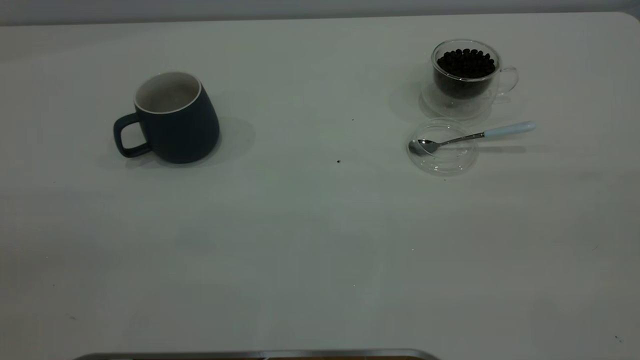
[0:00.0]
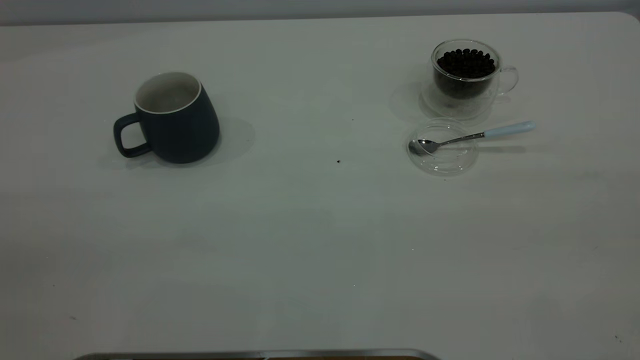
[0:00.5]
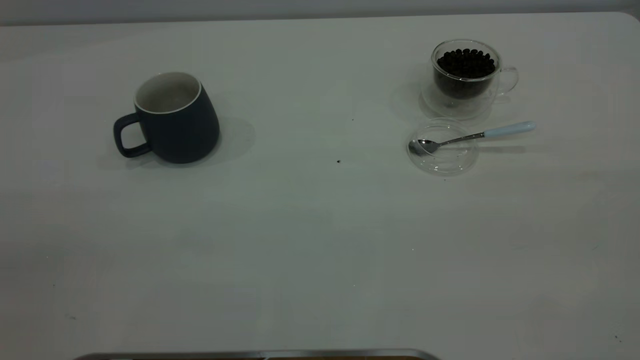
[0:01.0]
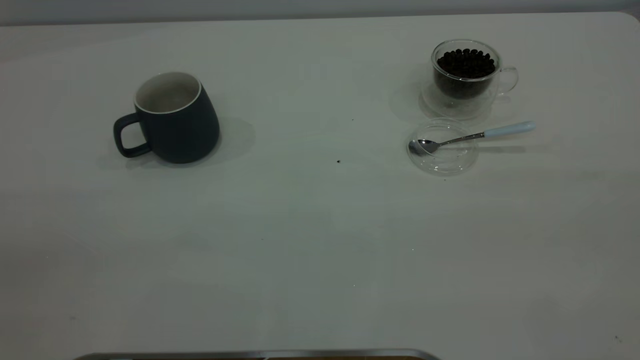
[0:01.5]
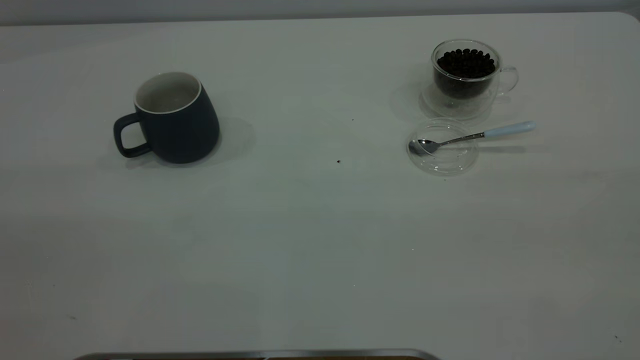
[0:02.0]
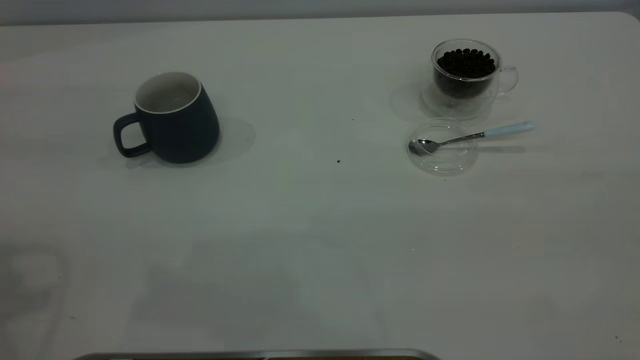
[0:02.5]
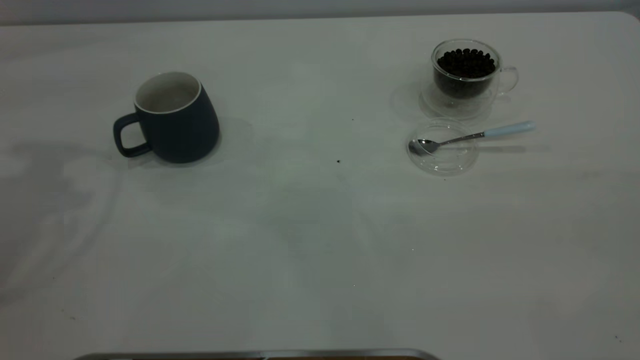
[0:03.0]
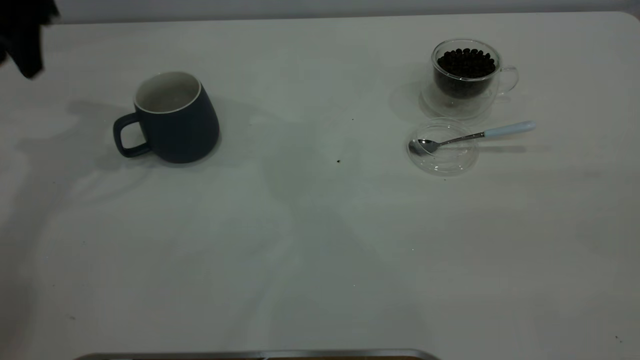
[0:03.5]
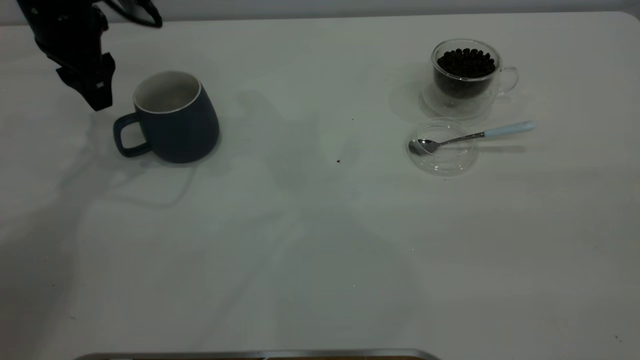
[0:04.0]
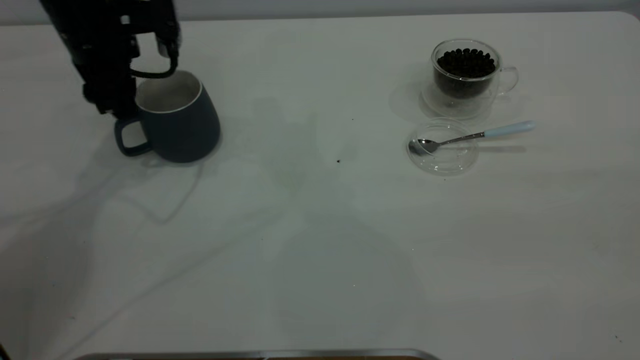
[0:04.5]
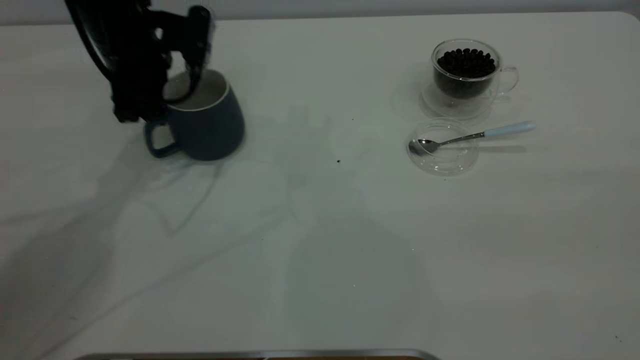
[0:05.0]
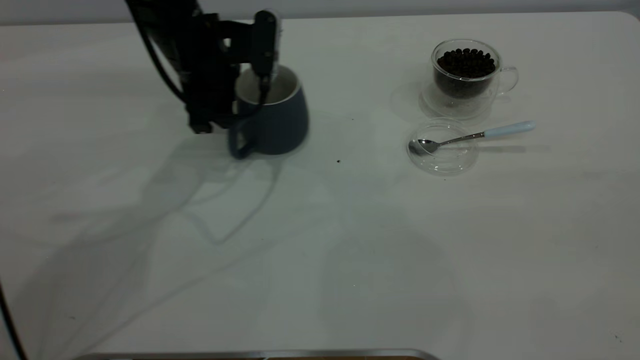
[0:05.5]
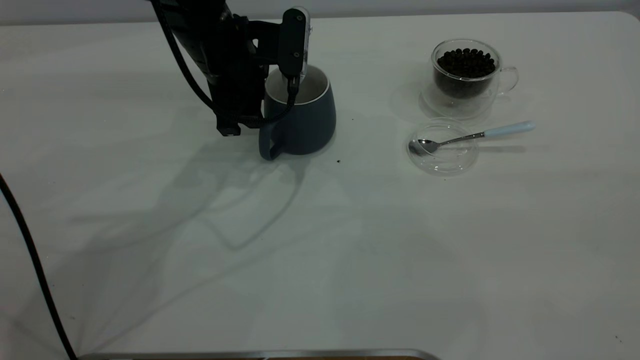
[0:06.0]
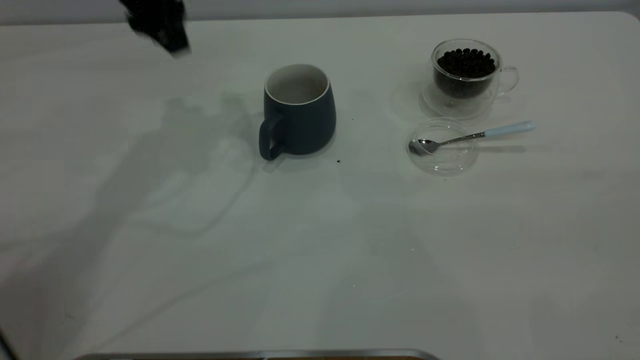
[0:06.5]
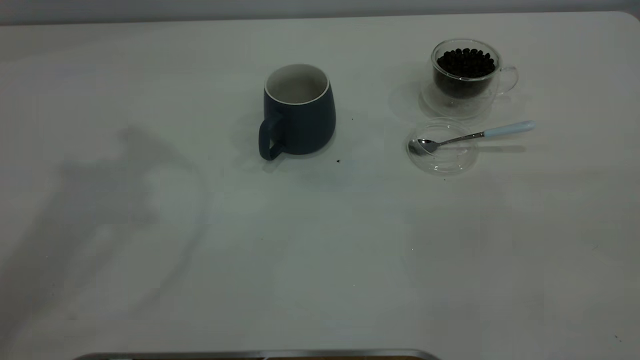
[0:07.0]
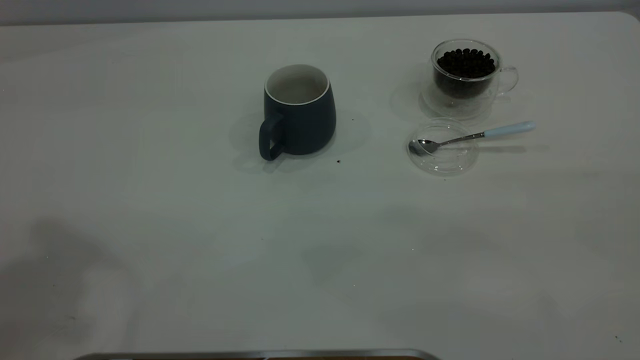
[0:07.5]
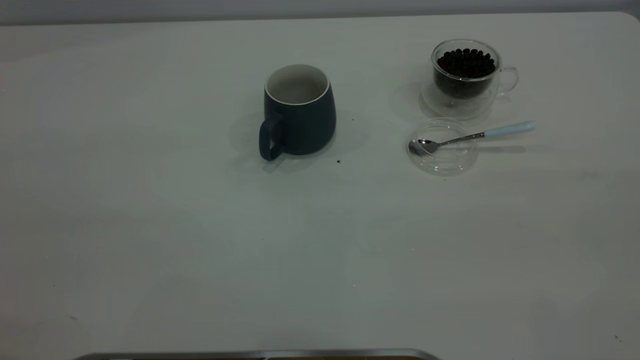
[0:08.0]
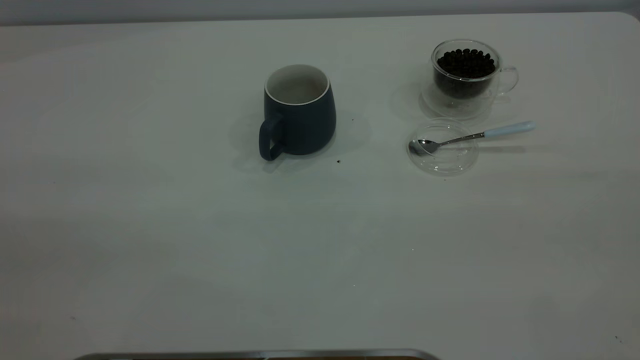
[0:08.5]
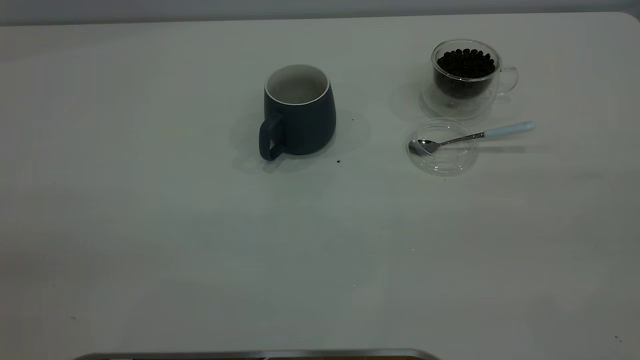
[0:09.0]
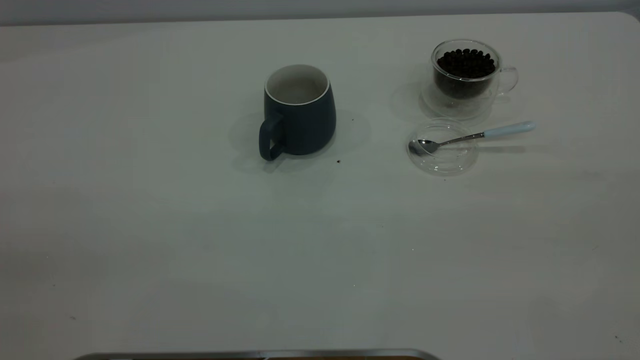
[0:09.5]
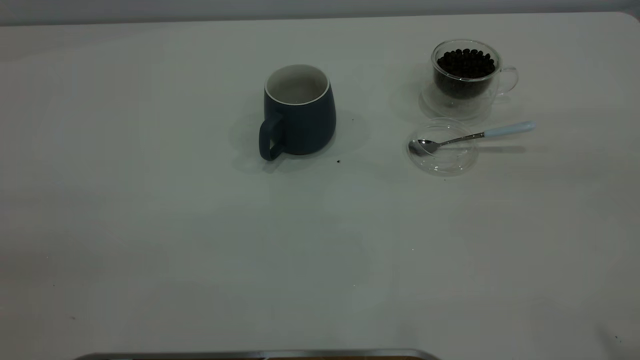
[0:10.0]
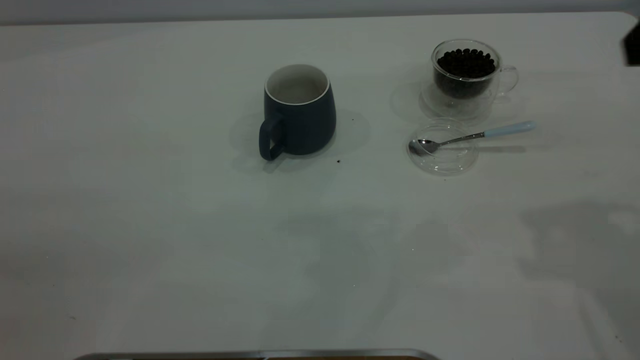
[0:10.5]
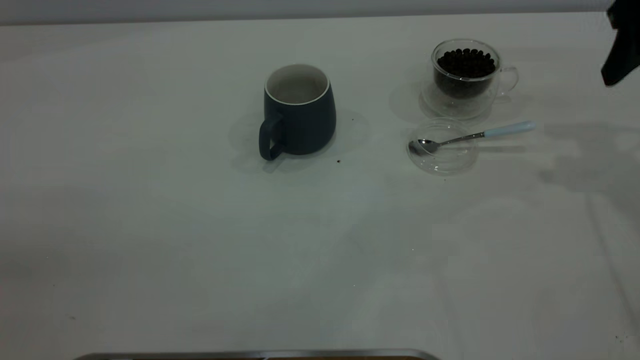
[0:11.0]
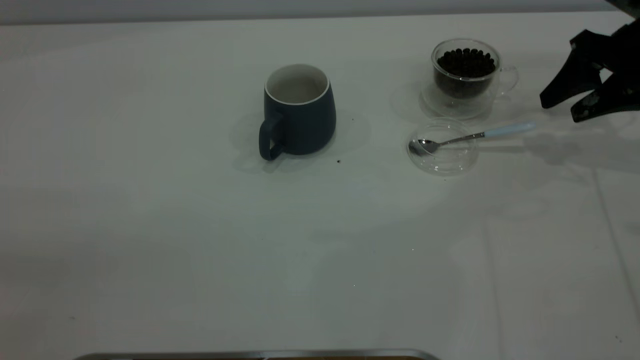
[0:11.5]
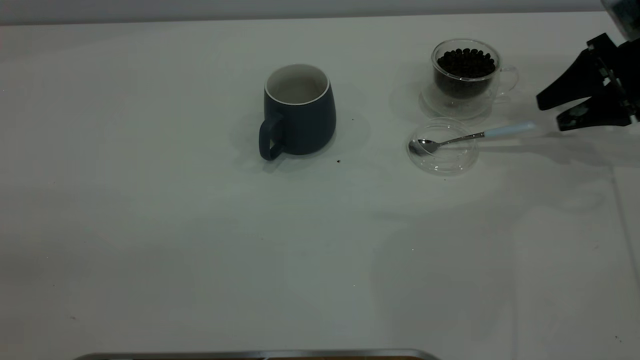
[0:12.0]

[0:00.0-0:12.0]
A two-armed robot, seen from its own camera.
Task of the whole recording: the left gripper place the grey cup in the center of the table, the right gripper take the blue spoon from the cup lid and scoop out the coffee beans from the coffee cup and put them into the grey cup, the right gripper put the spoon back into the cup lid.
Step, 0:00.0 to 0:06.0: Move the cup to the center of view.
0:02.0 to 0:04.0: The left gripper is displaced forward and downward by roughly 40 cm.
0:04.0 to 0:06.0: The left gripper is displaced to the right by some 15 cm.
0:06.0 to 0:08.0: The left gripper heads backward, upward and to the left, covering about 50 cm.
0:10.0 to 0:12.0: The right gripper goes roughly 40 cm forward and downward.

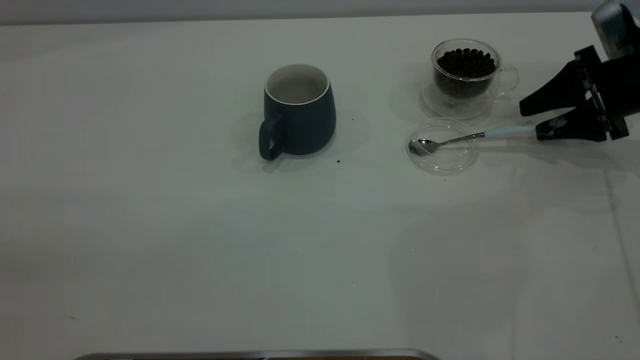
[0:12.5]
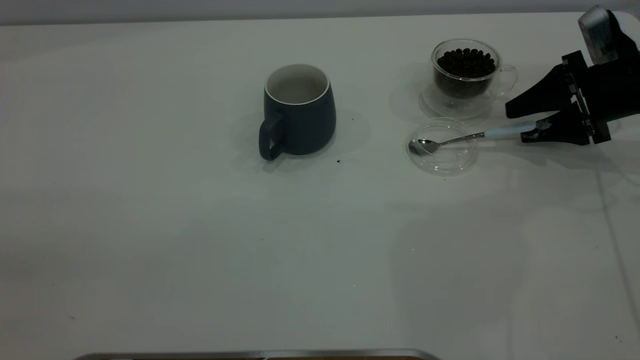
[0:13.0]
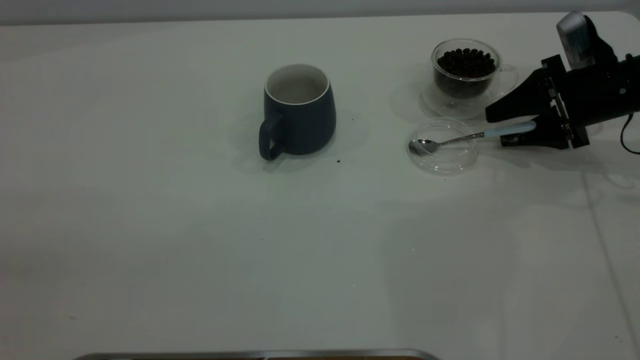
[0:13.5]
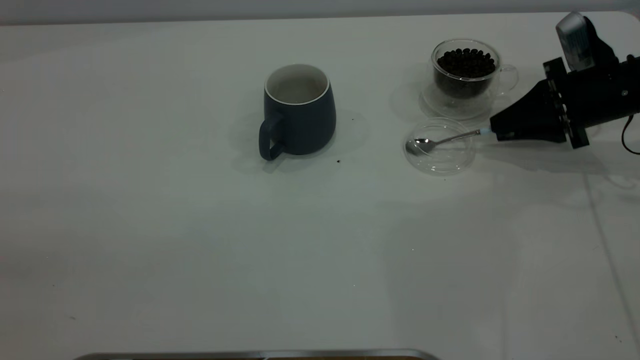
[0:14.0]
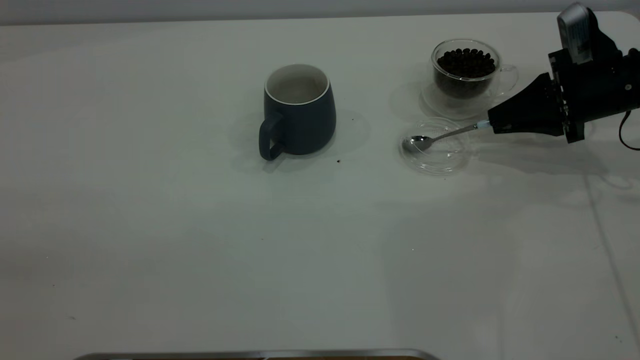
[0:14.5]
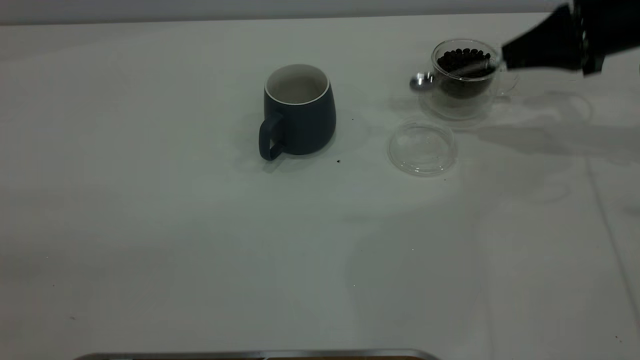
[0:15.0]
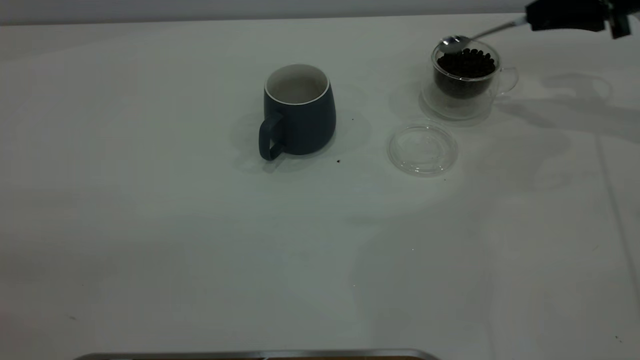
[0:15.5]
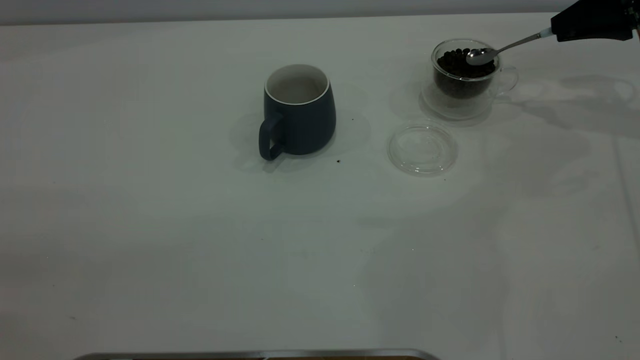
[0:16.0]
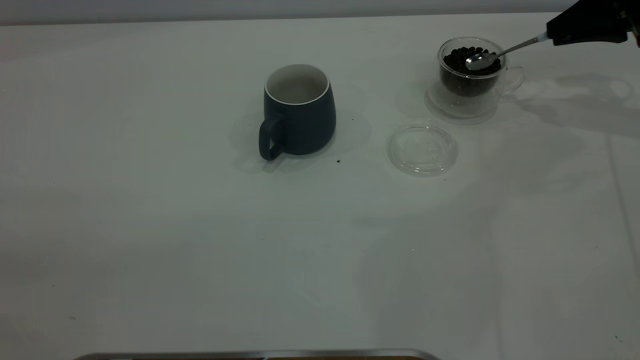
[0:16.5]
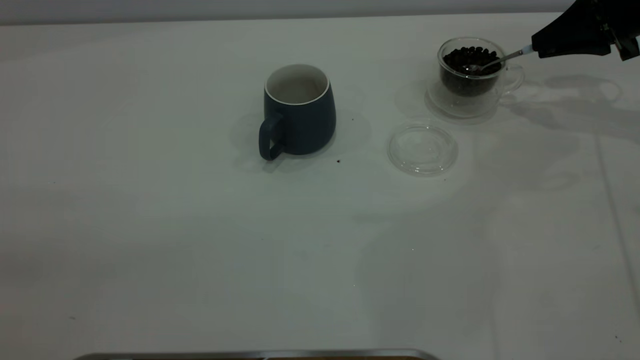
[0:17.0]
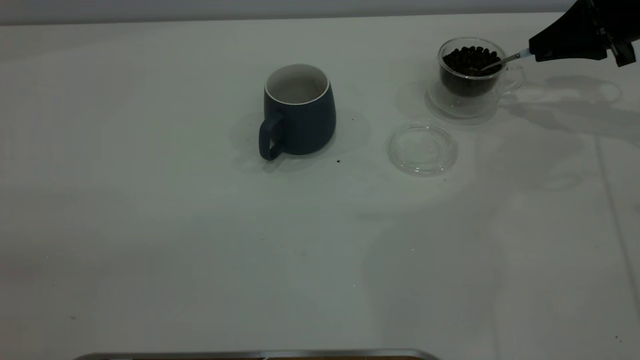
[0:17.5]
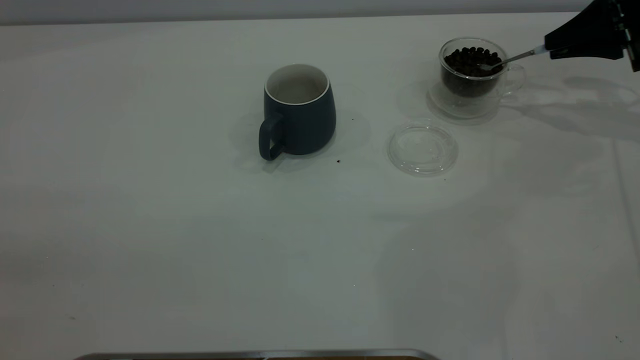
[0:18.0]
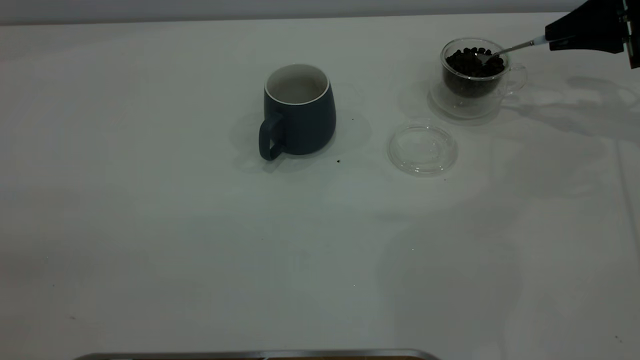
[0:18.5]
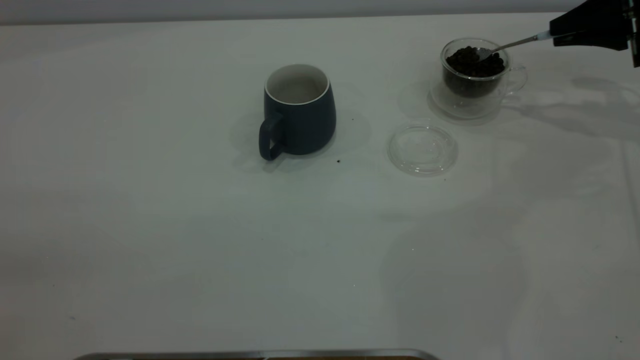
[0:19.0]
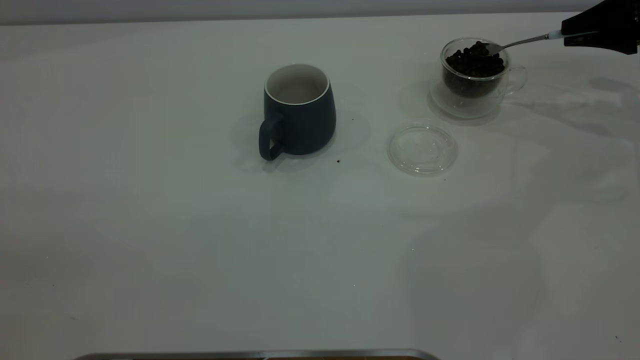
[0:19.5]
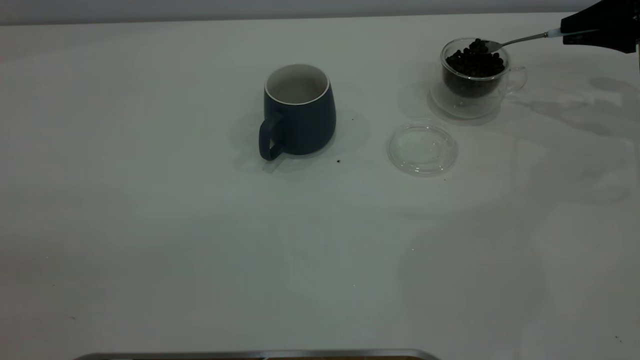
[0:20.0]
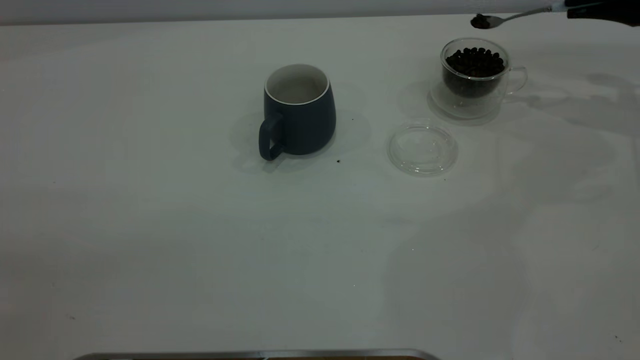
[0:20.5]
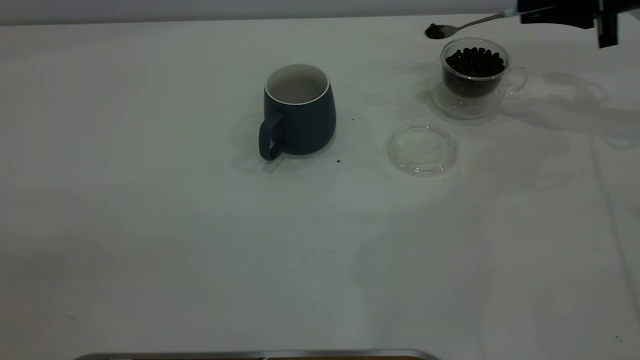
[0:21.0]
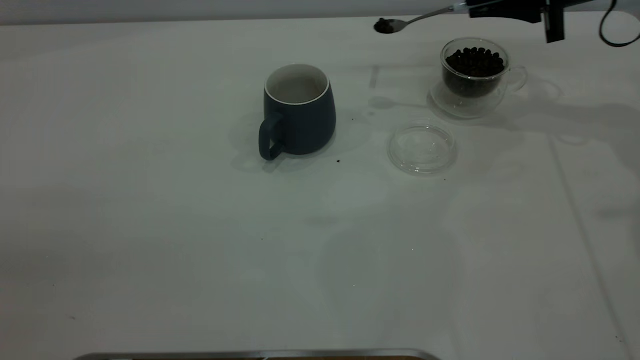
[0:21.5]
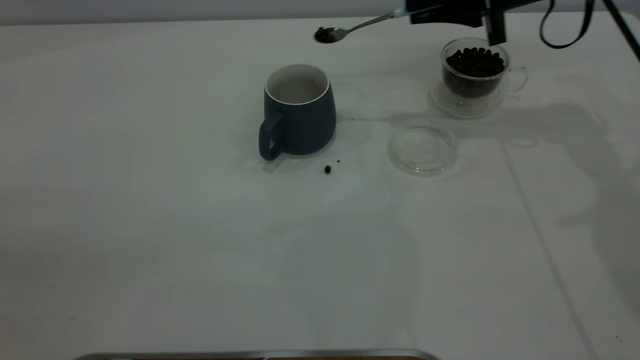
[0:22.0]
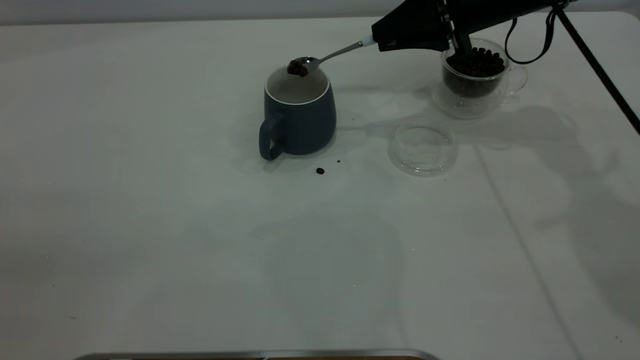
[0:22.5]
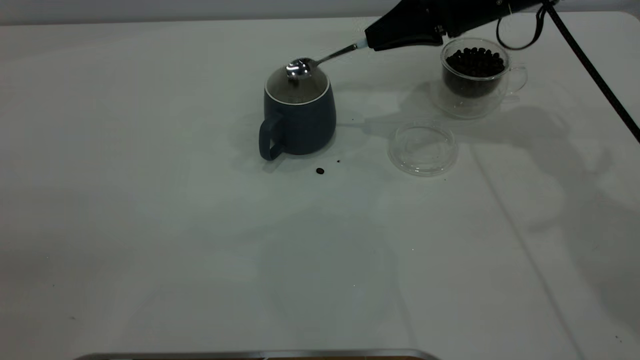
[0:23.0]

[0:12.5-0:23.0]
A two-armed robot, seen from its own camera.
Task of the whole recording: the left gripper place the grey cup in the center of the table, the right gripper take the blue spoon from the cup lid and scoop out the coffee beans from the coffee cup and put them into the grey cup, the right gripper put the spoon back into the cup lid.
Step, 0:12.5 to 0:14.5: Pick up the spoon.
0:12.5 to 0:14.5: The right gripper closes up.
0:14.5 to 0:16.5: The right gripper is displaced upward and forward by approximately 10 cm.
0:16.5 to 0:19.0: The grippers make only small movements.
0:19.0 to 0:21.0: The right gripper is displaced to the left by some 5 cm.
0:21.0 to 0:23.0: The right gripper goes roughly 15 cm to the left.
